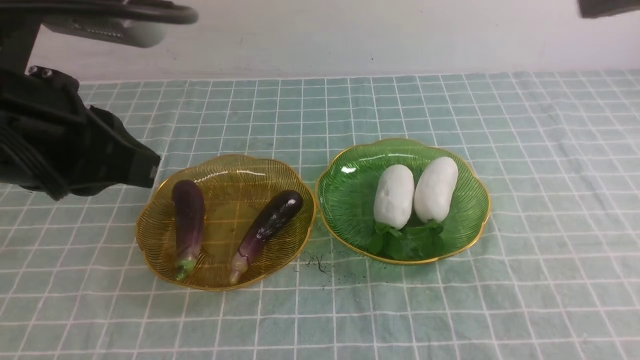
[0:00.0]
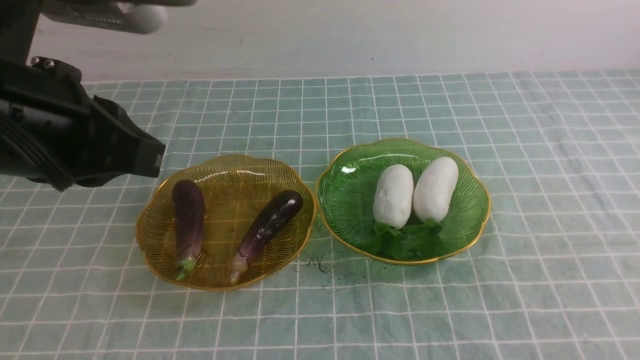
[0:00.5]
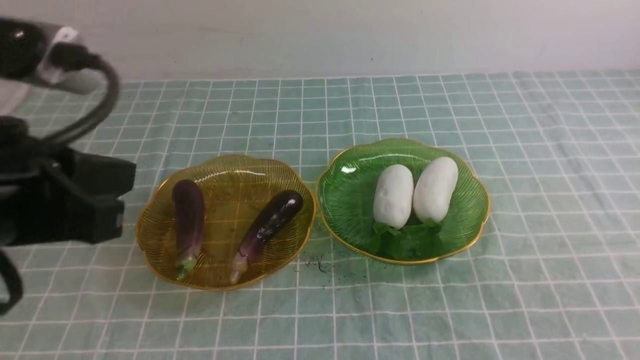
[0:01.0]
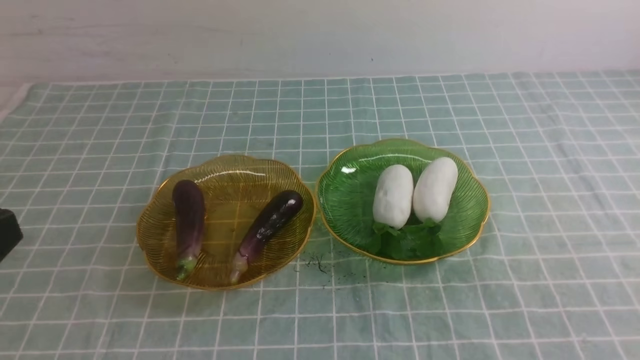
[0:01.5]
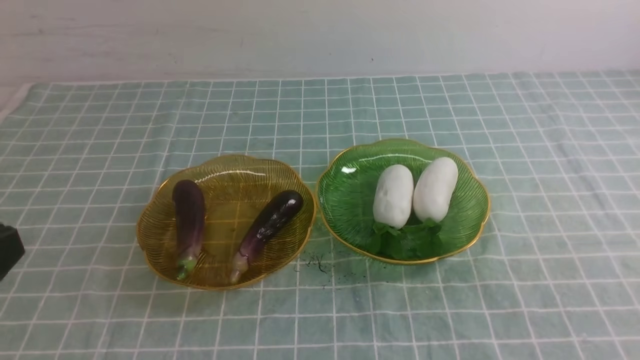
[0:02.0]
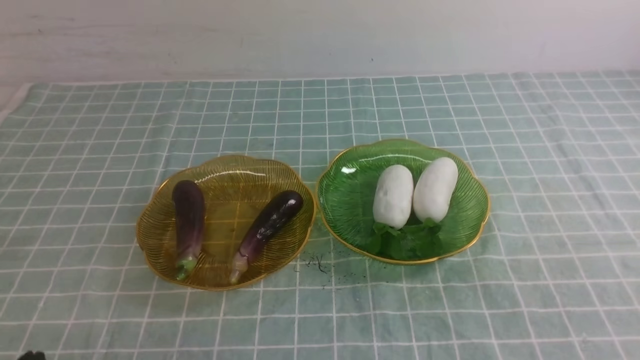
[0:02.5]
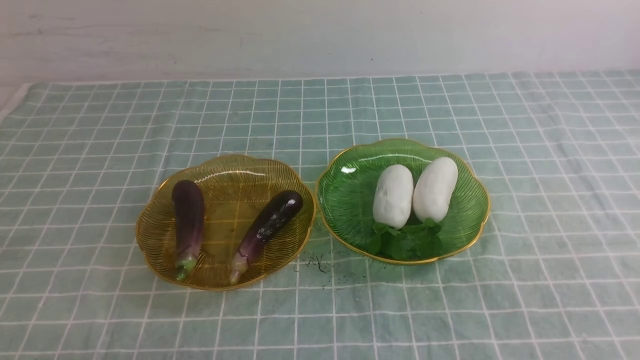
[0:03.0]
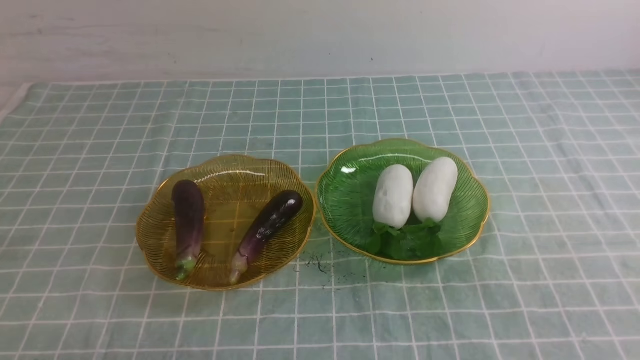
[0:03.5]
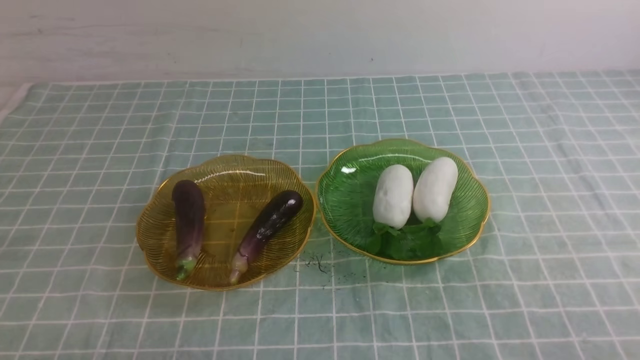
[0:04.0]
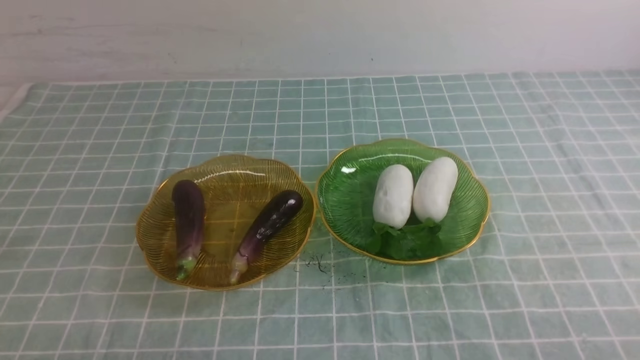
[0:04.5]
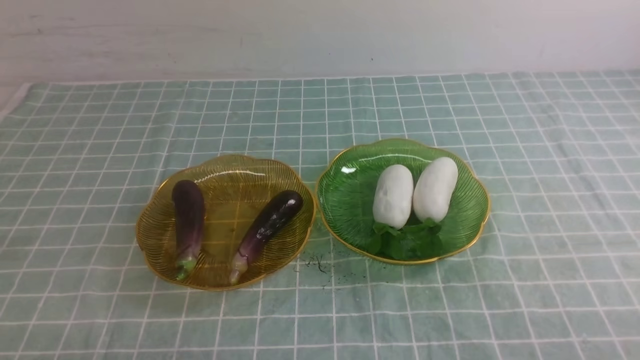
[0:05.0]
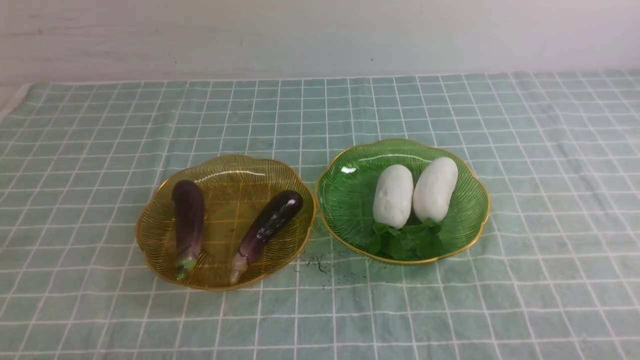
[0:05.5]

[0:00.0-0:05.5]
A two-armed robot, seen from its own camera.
0:00.0 to 0:02.0: The left gripper goes about 20 cm backward, downward and to the left.
